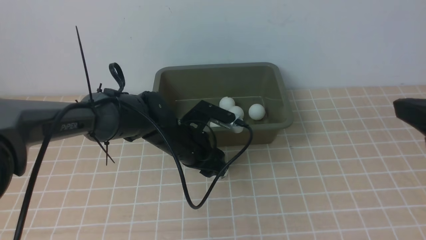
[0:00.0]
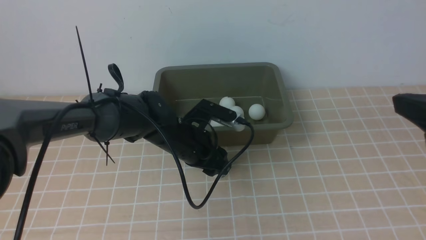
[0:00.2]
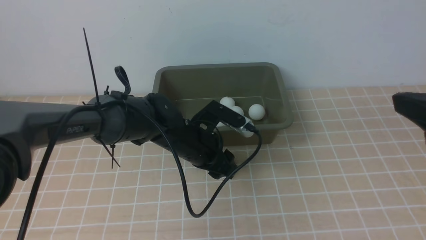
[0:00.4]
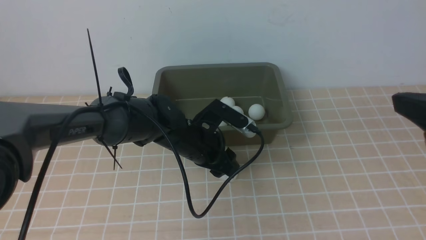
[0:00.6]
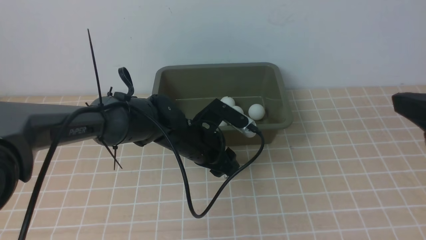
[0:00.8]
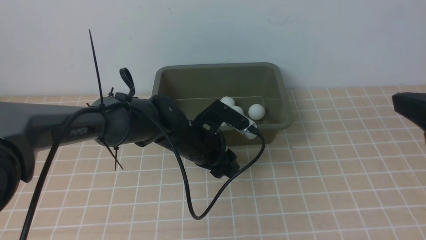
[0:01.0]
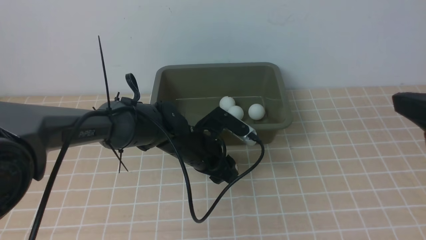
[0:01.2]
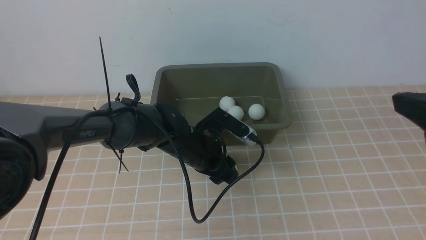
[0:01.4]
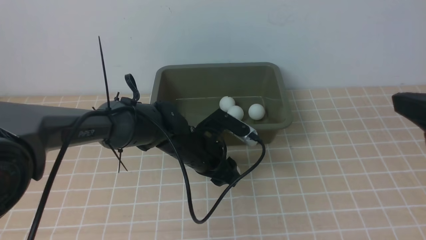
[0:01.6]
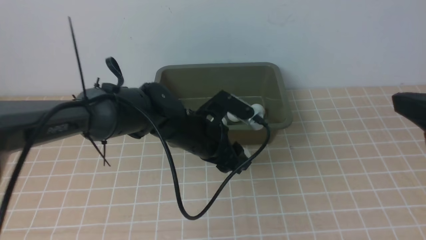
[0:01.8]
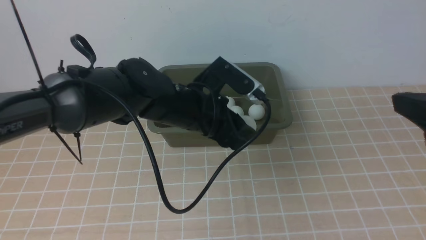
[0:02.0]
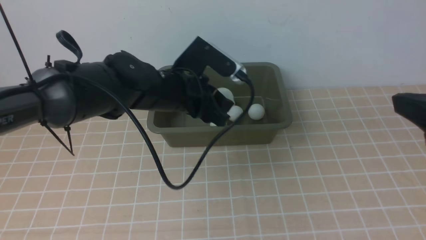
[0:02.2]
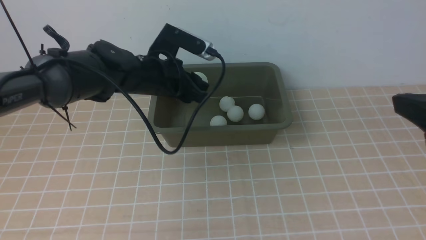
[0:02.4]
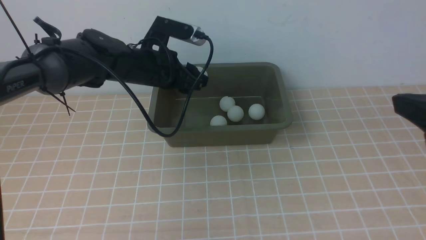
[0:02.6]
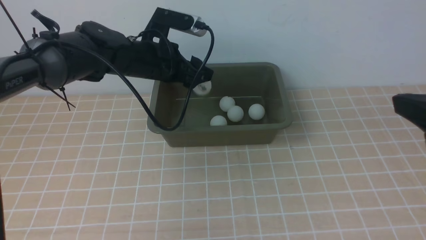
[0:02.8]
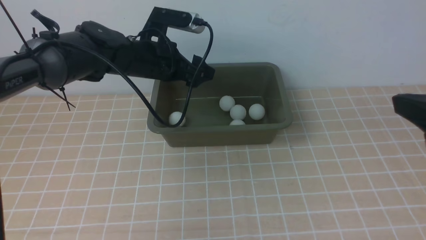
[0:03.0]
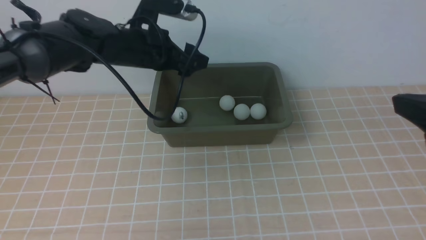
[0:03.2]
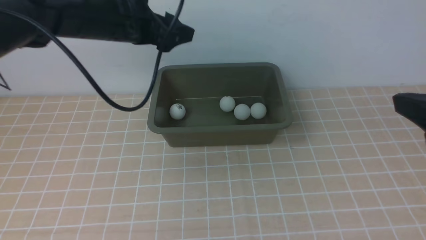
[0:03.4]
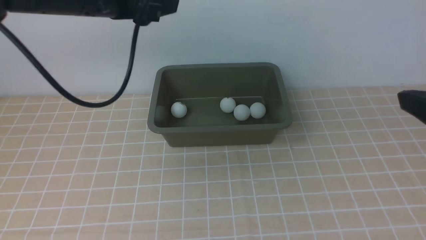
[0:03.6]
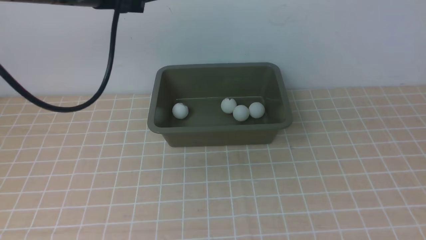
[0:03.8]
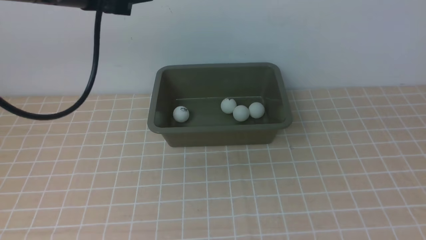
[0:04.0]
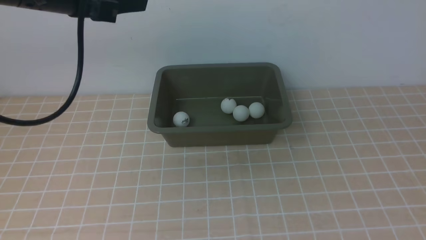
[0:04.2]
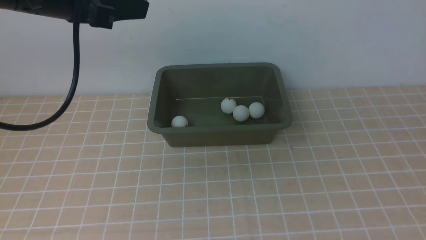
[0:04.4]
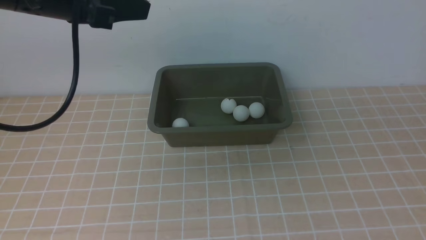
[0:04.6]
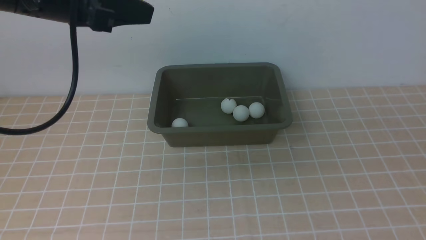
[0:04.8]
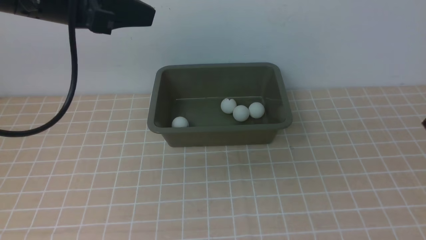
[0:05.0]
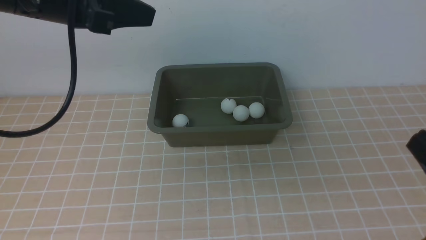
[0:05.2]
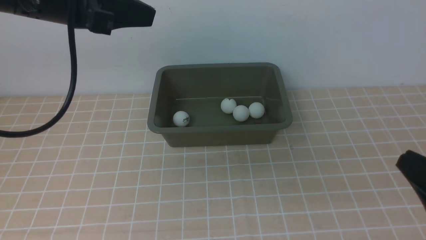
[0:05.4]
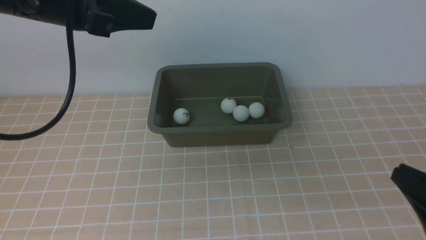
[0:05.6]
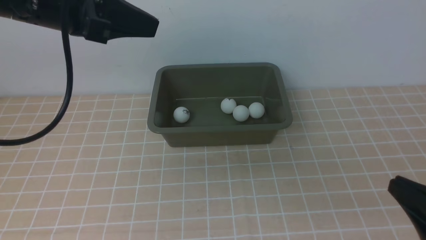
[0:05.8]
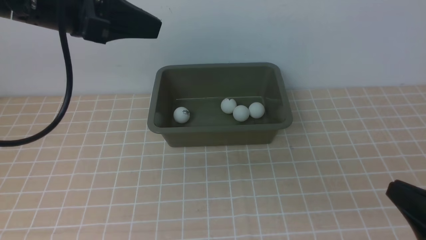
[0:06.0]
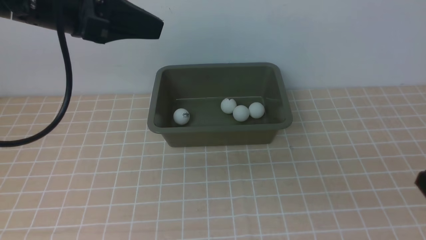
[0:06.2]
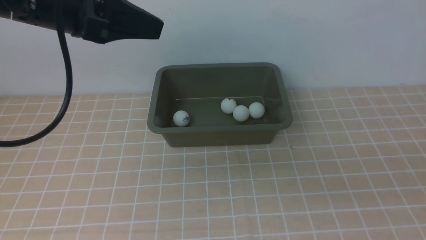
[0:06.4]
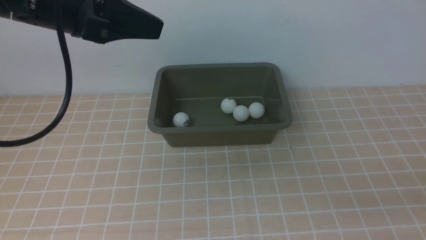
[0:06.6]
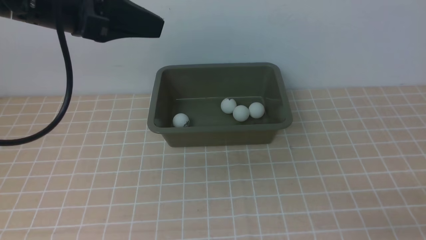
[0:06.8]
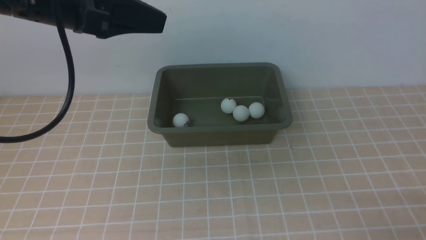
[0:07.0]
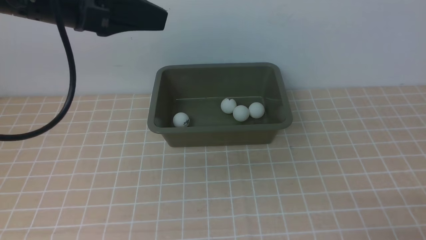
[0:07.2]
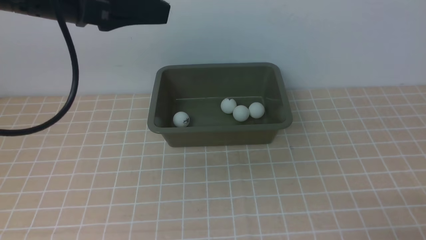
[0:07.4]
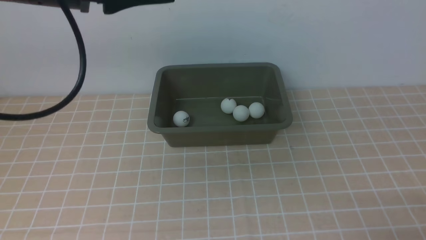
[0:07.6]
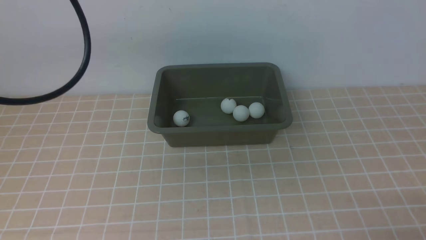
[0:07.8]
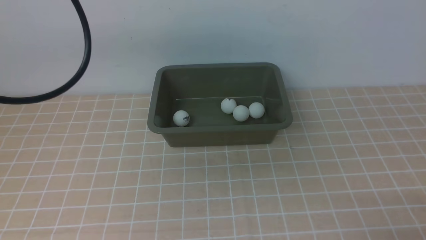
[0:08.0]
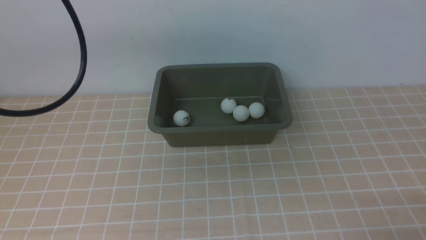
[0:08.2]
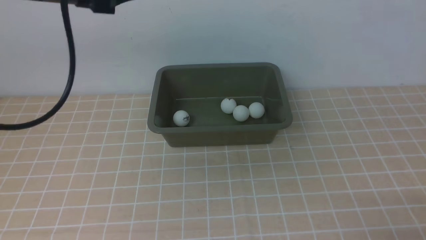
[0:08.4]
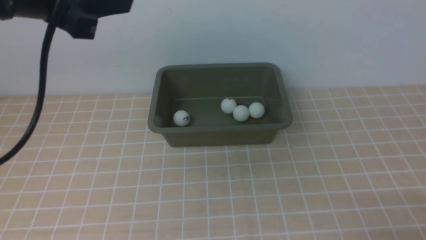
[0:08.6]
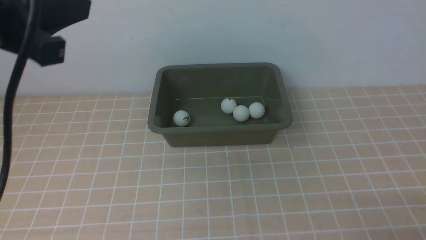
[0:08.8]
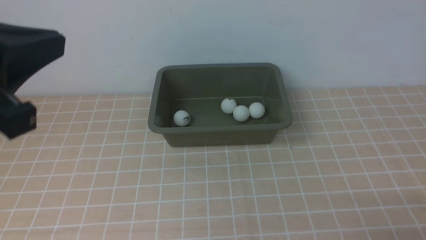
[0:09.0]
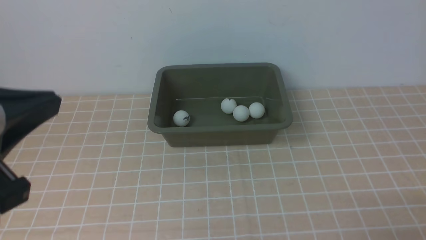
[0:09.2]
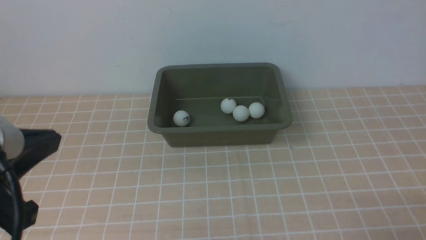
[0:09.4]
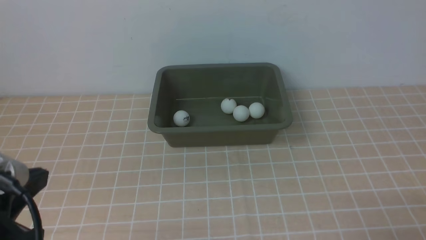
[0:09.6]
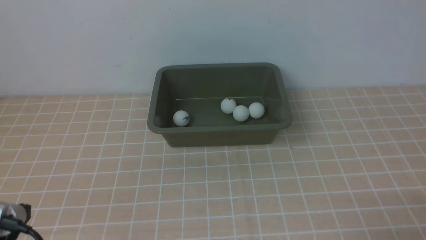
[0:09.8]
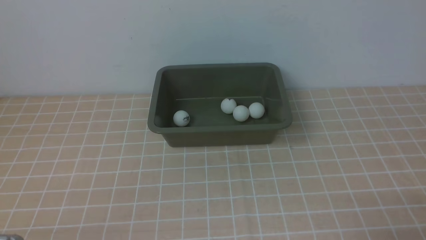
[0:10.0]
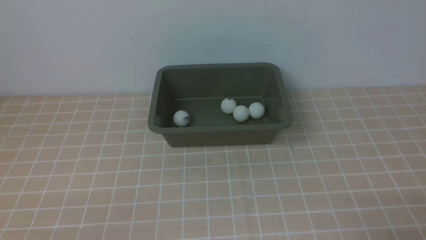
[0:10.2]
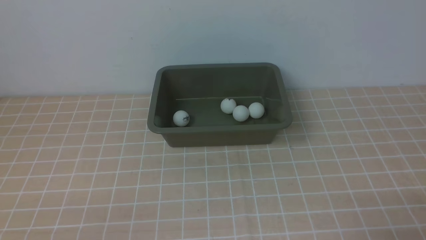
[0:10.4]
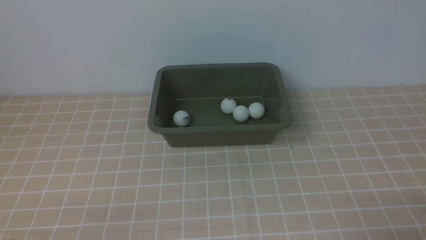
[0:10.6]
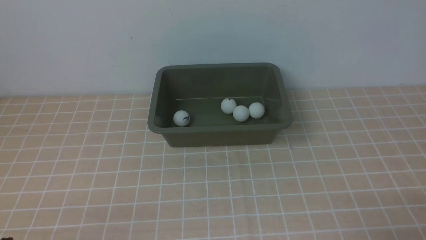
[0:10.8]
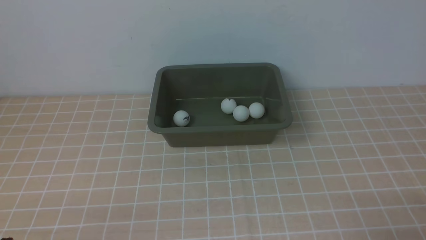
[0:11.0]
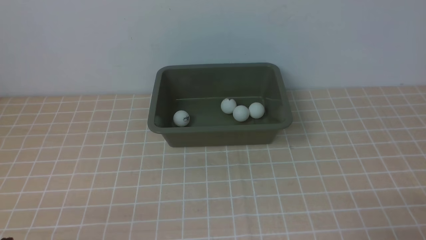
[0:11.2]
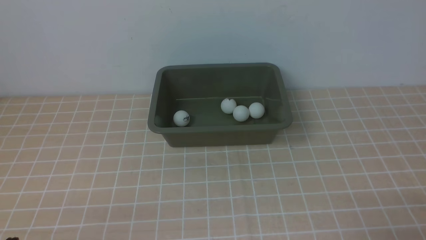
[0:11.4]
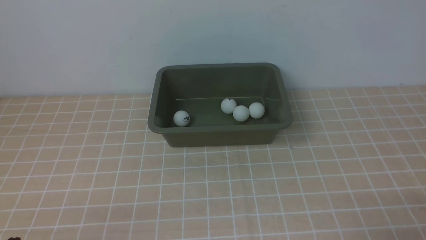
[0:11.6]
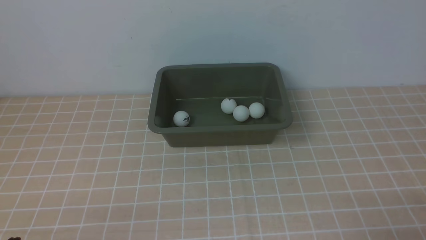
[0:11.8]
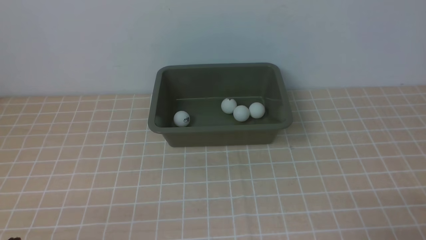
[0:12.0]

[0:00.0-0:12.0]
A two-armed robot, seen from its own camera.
Step, 1.8 to 3.0 s: use the left arm to put the table tennis ball into the box.
0.0 to 1.6 s: There are only small adjustments of the grippers.
1.6 to 3.0 s: The left gripper shifts approximately 15 cm upward, to the left and forward.
3.0 to 4.4 s: The right gripper shifts about 10 cm backward, and closes up, while the left gripper goes about 20 cm upward, backward and to the left, and closes its fingers.
4.4 to 6.0 s: The right gripper travels downward by some 15 cm.
6.0 to 7.6 s: The right gripper goes about 5 cm downward.
7.6 to 9.0 s: The left gripper travels backward by some 15 cm.
9.0 to 10.4 s: The left gripper goes approximately 25 cm downward.
10.4 to 12.0 s: The two grippers keep their place.

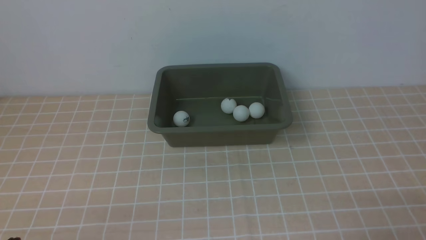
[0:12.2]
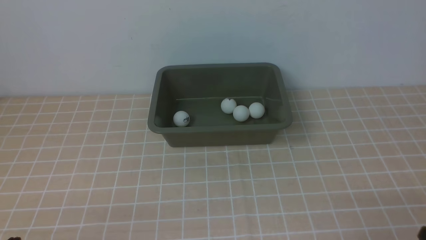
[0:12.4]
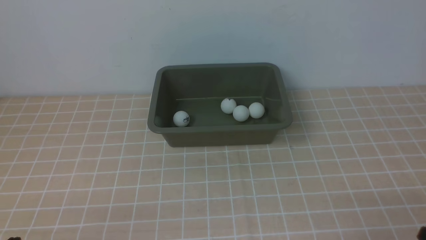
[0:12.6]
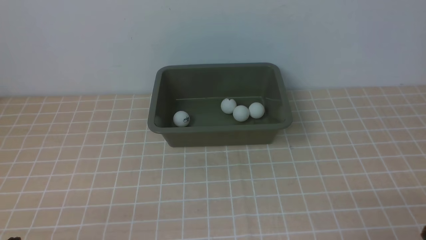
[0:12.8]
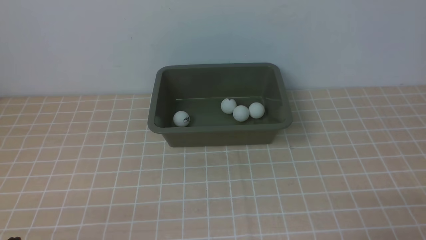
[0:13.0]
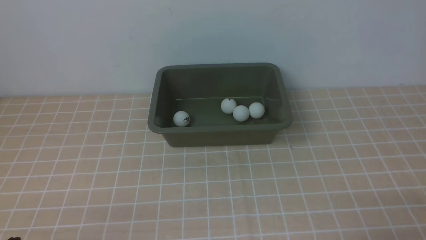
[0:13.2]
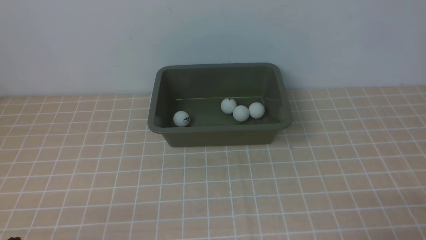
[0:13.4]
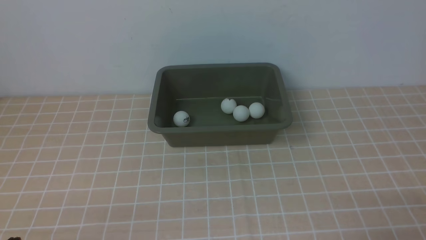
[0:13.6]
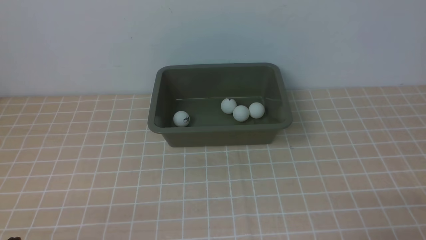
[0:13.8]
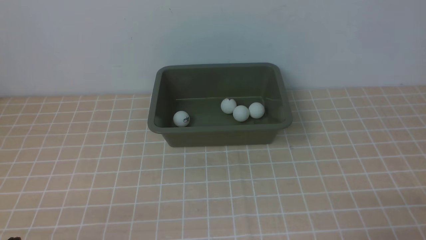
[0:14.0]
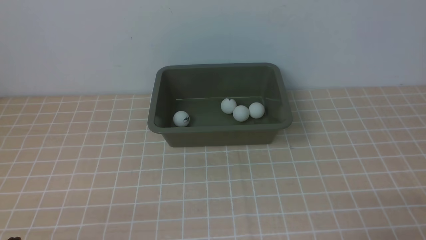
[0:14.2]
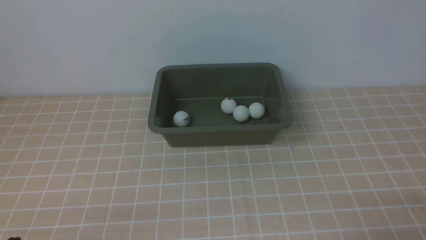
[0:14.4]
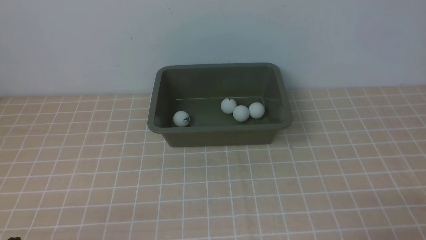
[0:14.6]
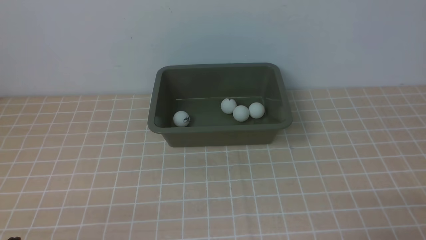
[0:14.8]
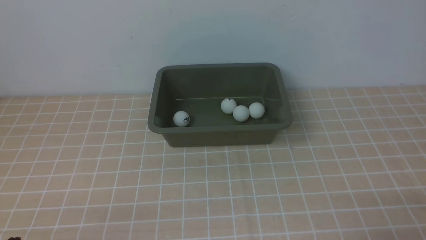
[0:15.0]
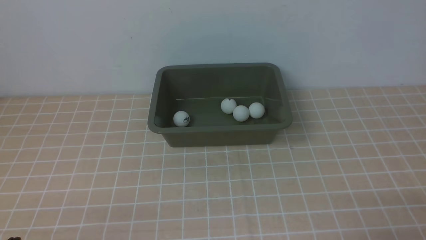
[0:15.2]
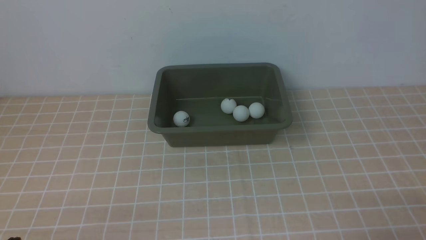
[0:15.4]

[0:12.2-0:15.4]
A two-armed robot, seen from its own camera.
13.8 to 15.4 s: Both grippers stay put.

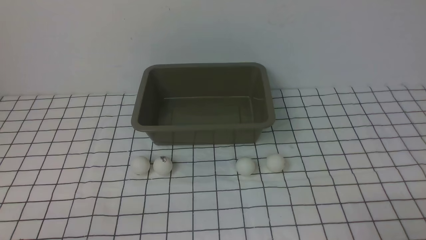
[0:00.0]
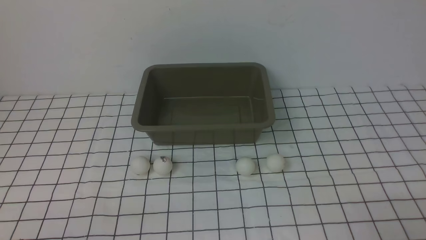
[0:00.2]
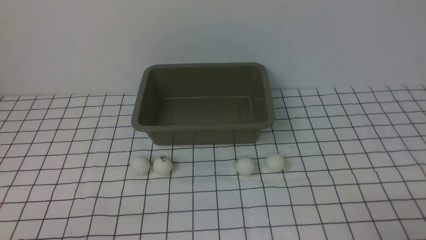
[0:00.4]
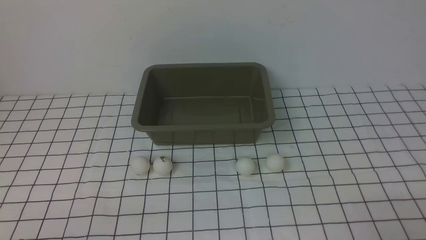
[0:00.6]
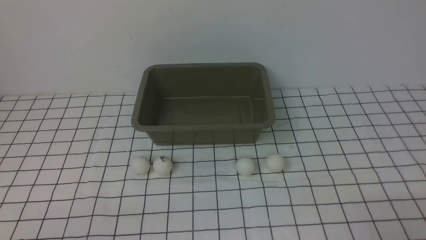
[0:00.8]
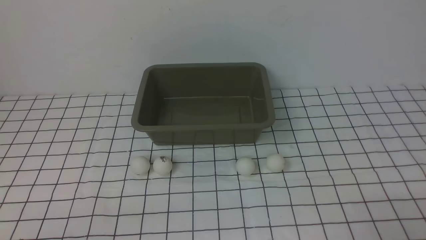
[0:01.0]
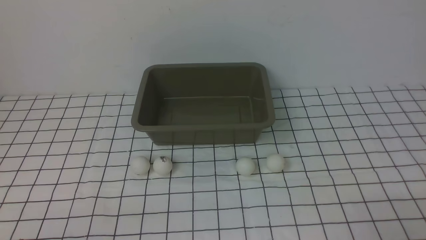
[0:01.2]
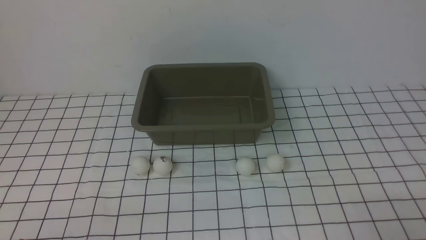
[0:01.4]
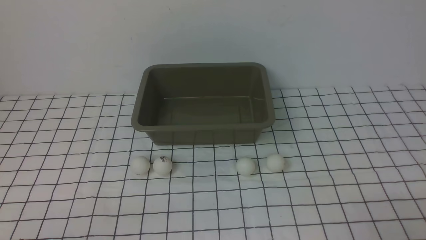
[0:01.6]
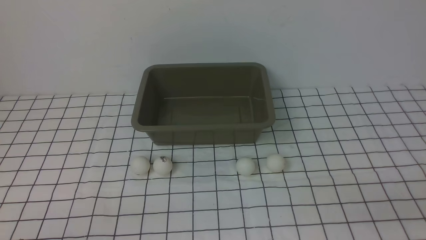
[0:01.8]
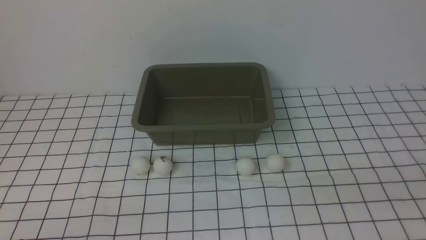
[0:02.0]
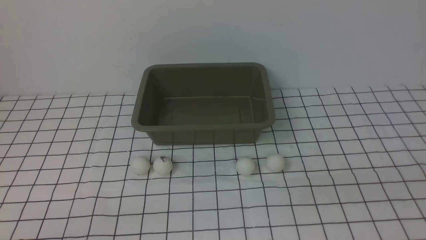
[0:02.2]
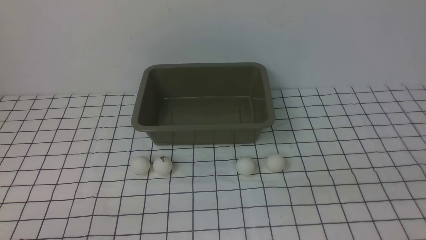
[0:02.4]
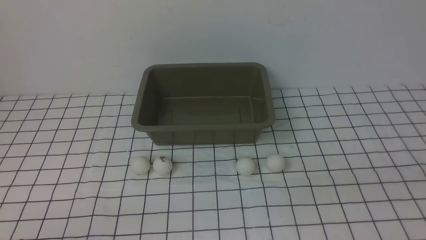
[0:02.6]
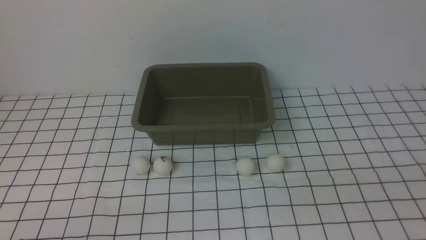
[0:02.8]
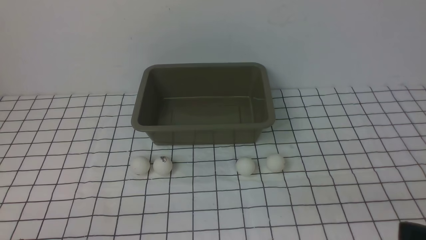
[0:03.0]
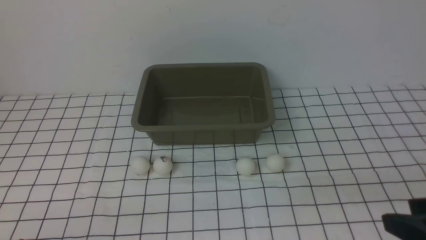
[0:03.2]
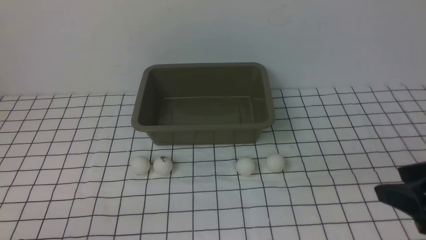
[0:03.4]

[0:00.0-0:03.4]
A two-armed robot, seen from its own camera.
1.6 to 3.4 s: The right gripper goes roughly 15 cm forward and upward.
